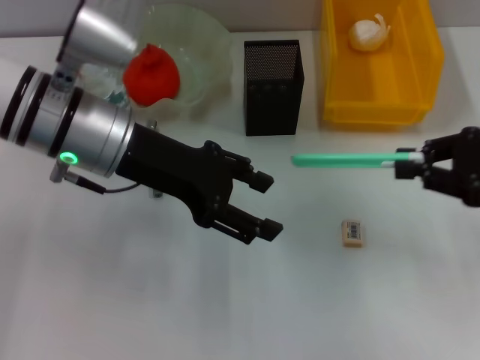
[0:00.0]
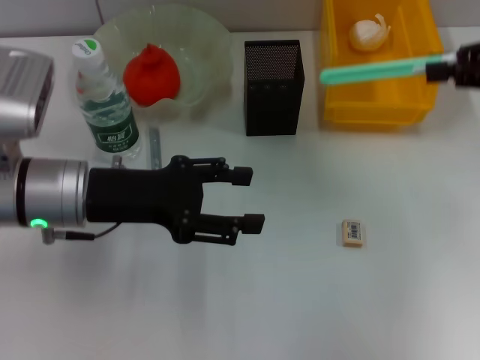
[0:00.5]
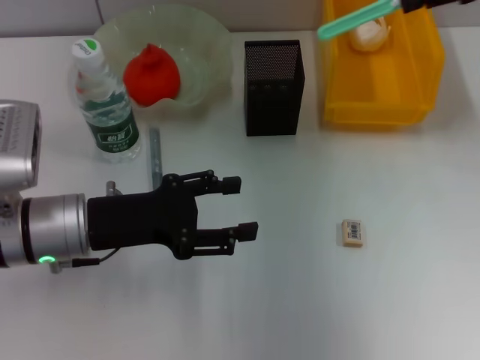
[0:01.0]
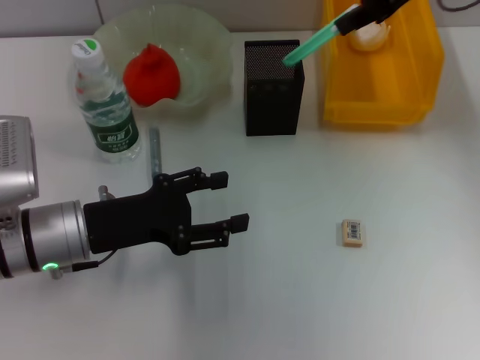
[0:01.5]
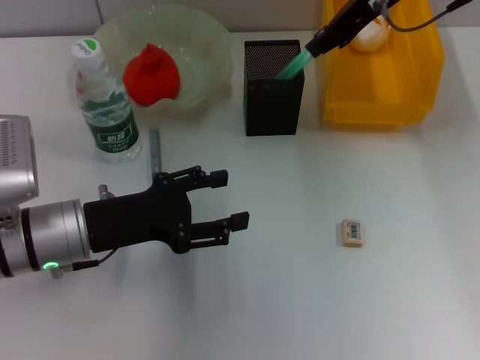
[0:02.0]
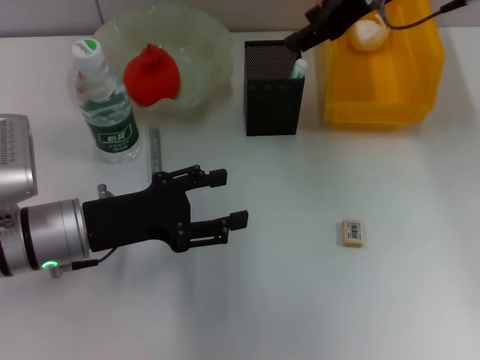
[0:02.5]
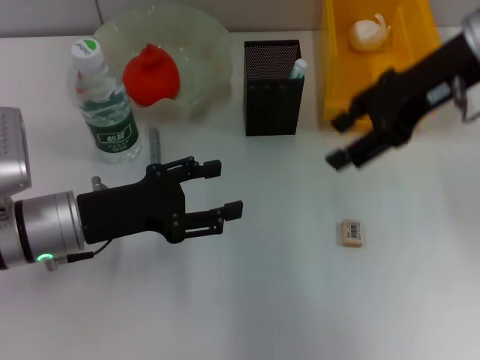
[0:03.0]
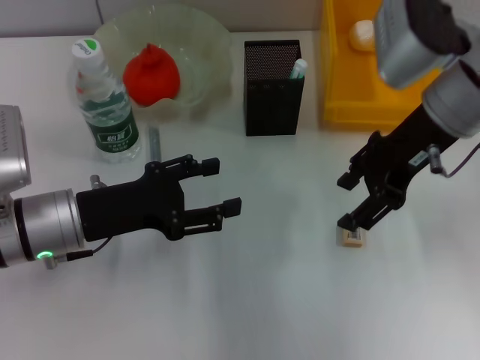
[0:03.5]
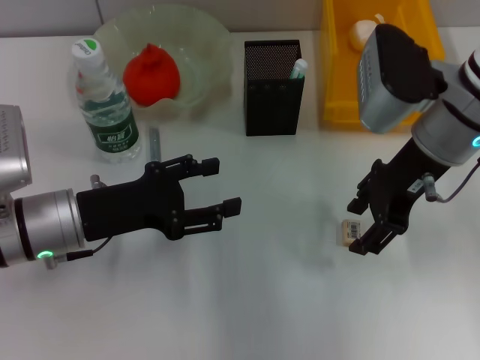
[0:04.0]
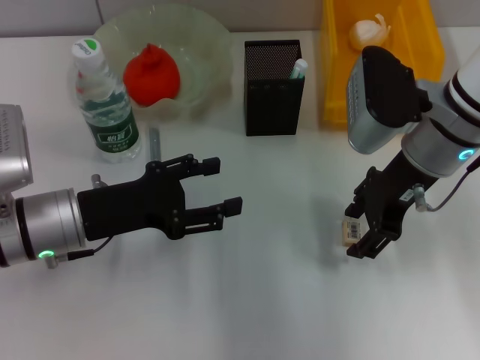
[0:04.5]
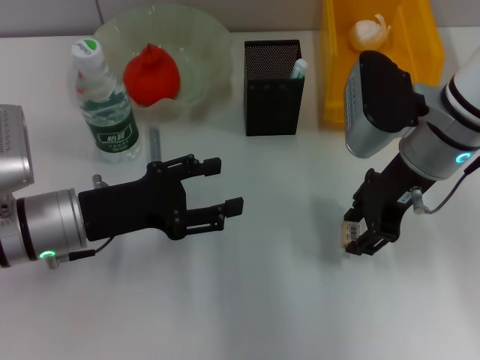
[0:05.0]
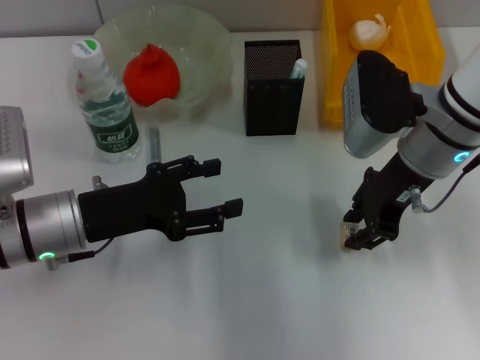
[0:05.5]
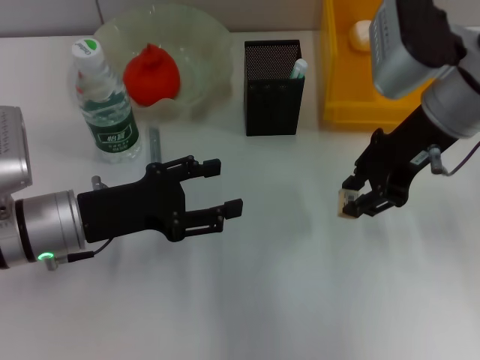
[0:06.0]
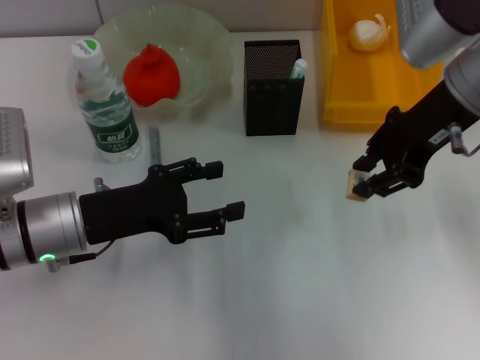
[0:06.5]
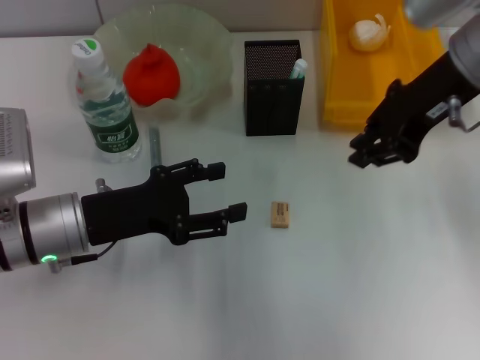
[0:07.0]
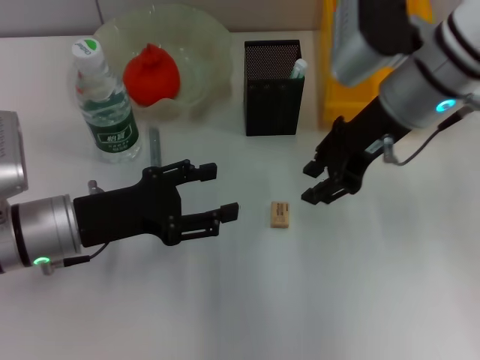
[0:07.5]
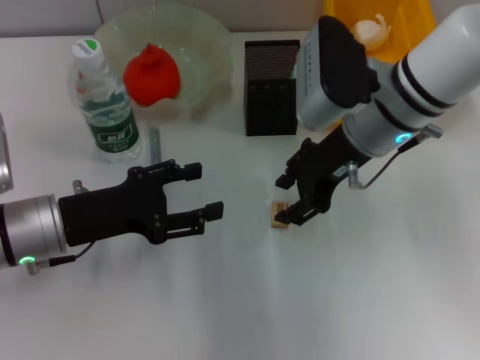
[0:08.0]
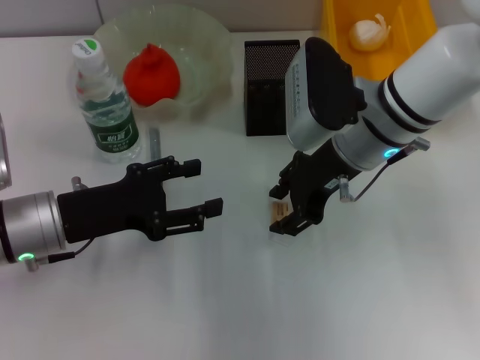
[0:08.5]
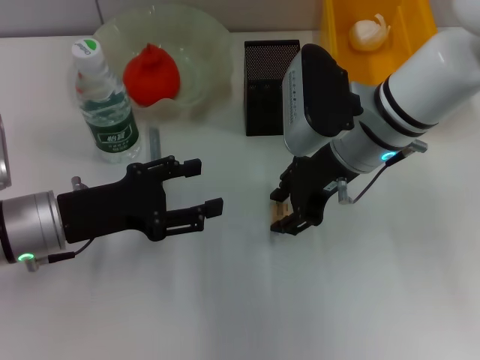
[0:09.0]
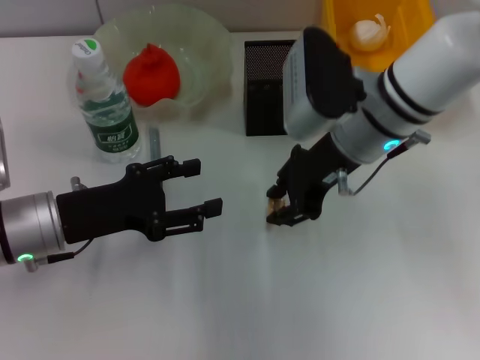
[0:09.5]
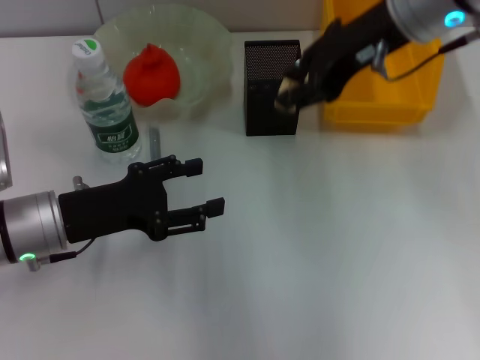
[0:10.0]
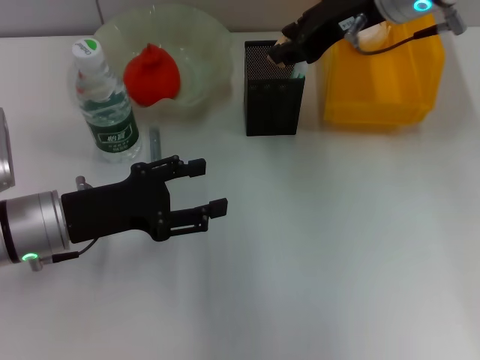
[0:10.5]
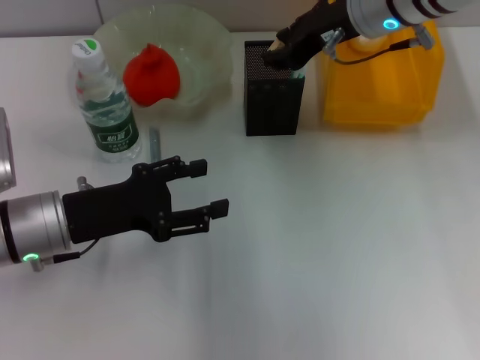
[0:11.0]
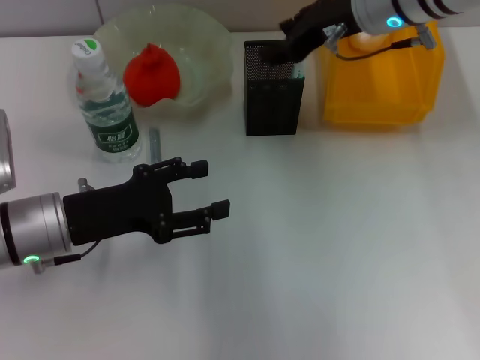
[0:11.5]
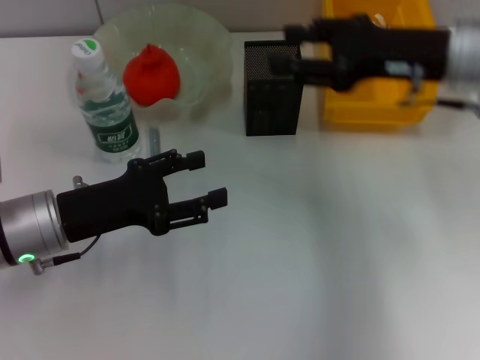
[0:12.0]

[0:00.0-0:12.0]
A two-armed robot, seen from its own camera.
Step, 0:00.0 to 0:02.0: Place the blue utility knife into the pen holder with the right hand.
Step, 0:02.5 to 0:09.0: Grab the eraser with the right hand.
Step, 0:09.5 to 0:11.0: Put the eraser into the pen holder with the right hand.
0:00.0 to 0:02.0: The right gripper heads to the left, forward and upward, covering roughly 25 cm. The left gripper travels downward, backward and to the left by some 15 cm.
0:02.0 to 0:04.0: The right gripper shifts about 15 cm downward and backward, and opens its fingers.
0:04.0 to 0:06.0: The right gripper closes.
0:06.0 to 0:08.0: The right gripper goes about 5 cm to the left.
0:08.0 to 0:10.0: The right gripper goes roughly 10 cm upward.
0:10.0 to 0:12.0: The right gripper travels downward and to the right by some 10 cm, and opens its fingers.

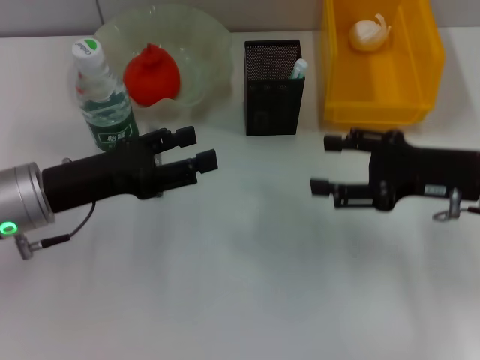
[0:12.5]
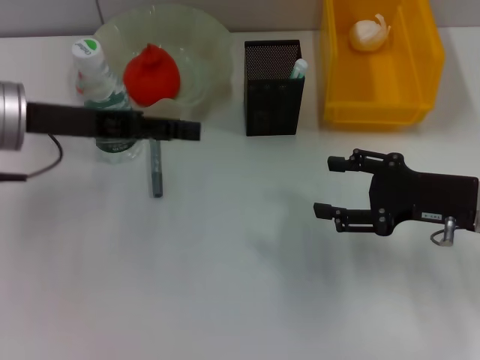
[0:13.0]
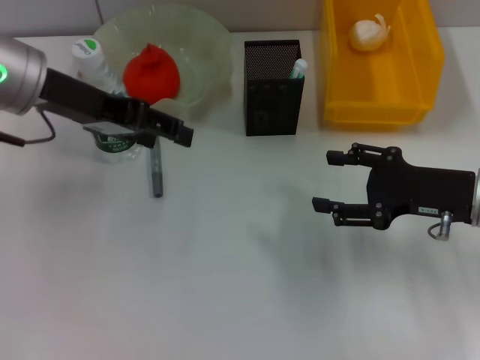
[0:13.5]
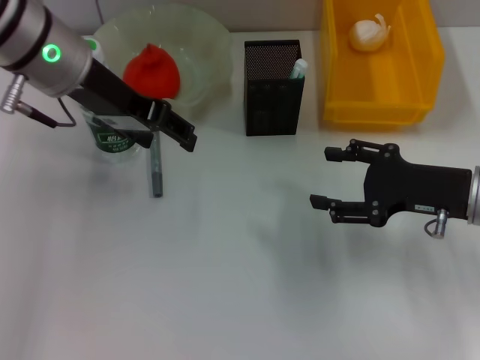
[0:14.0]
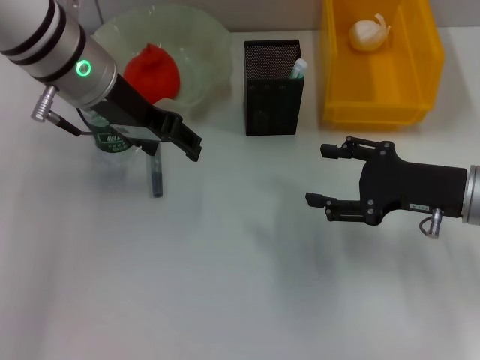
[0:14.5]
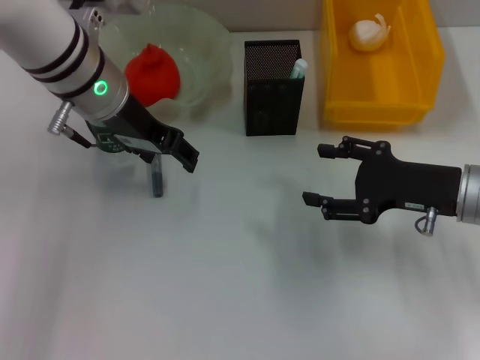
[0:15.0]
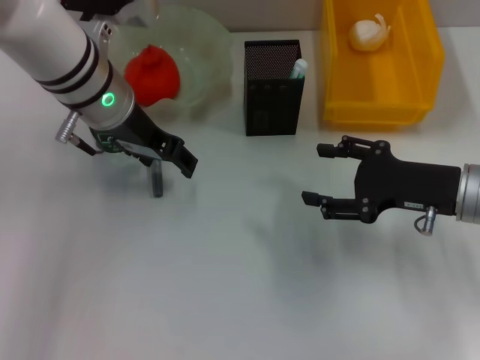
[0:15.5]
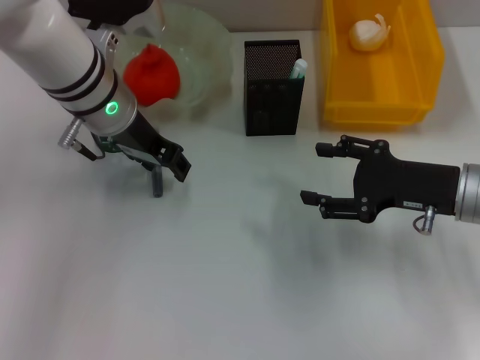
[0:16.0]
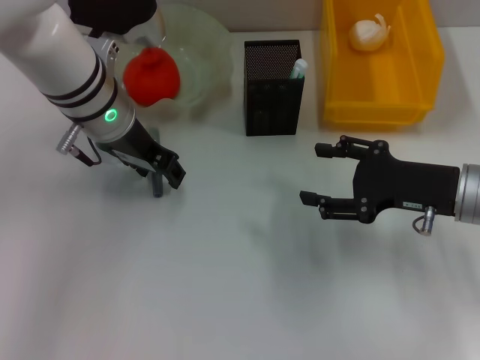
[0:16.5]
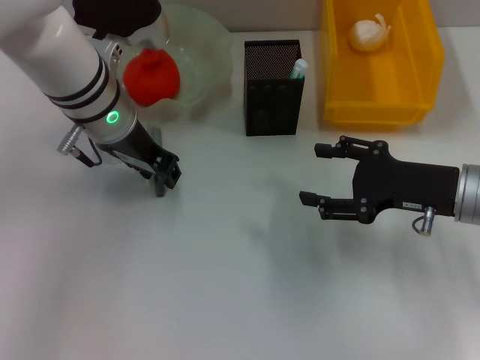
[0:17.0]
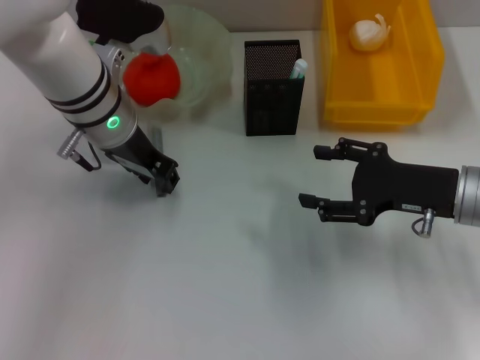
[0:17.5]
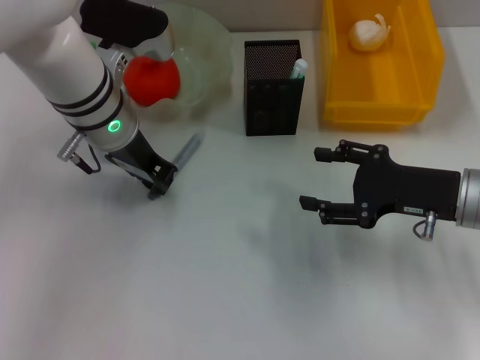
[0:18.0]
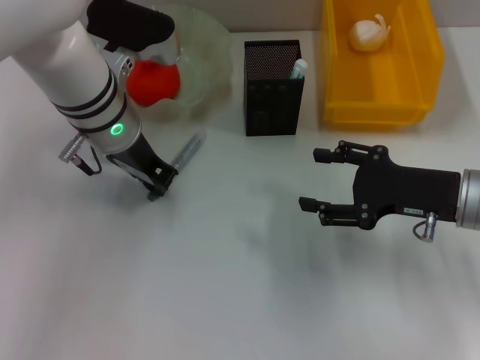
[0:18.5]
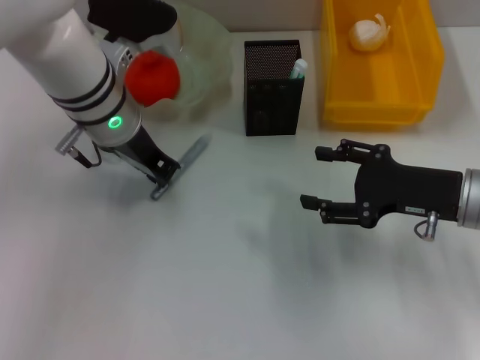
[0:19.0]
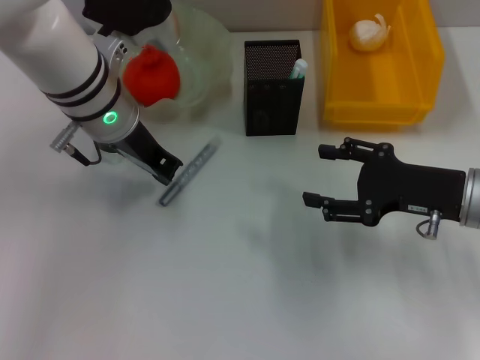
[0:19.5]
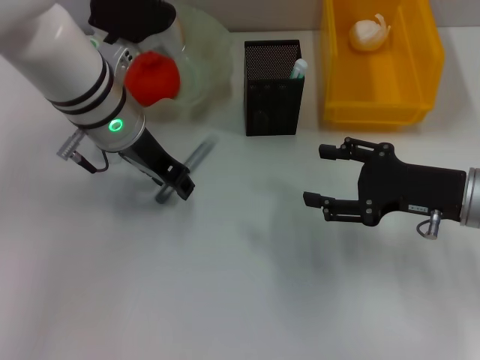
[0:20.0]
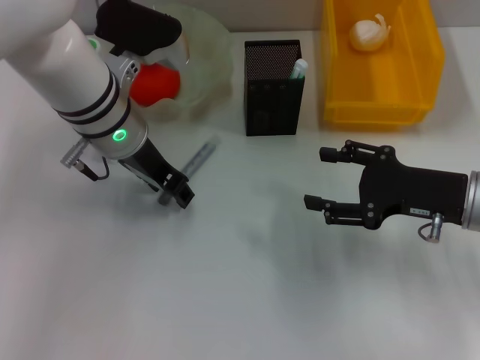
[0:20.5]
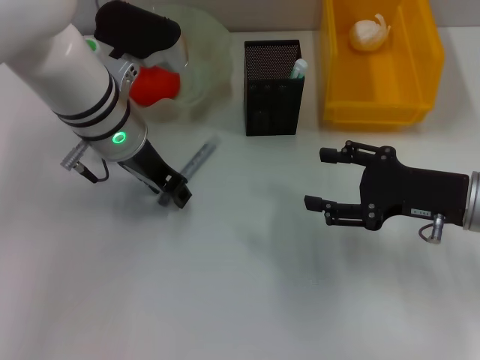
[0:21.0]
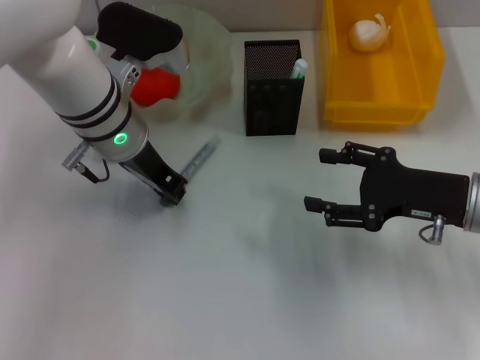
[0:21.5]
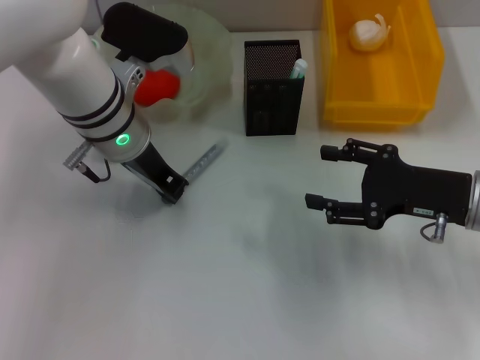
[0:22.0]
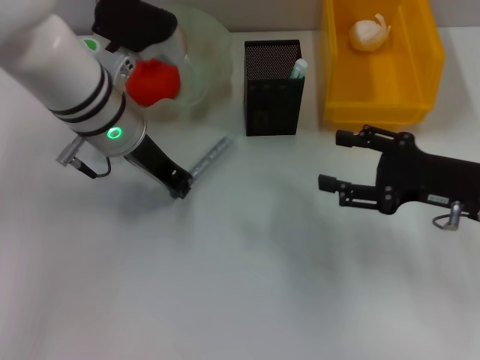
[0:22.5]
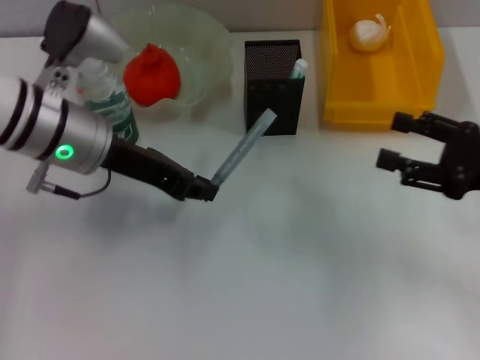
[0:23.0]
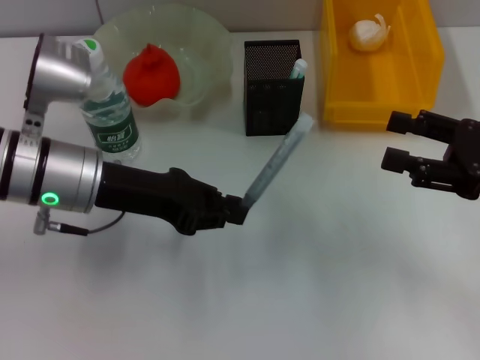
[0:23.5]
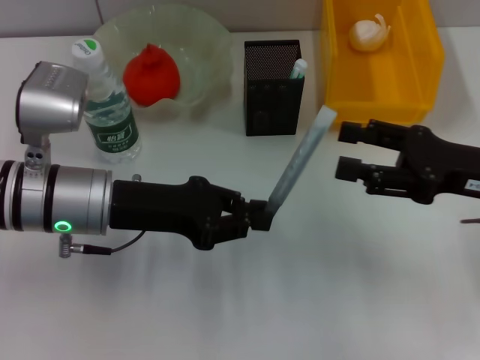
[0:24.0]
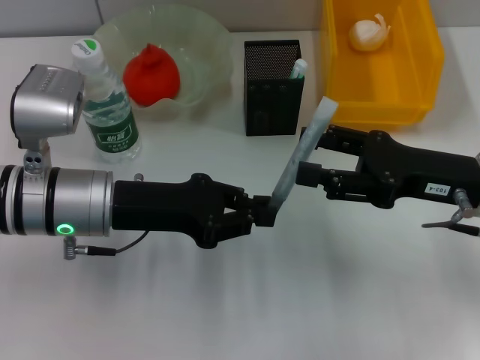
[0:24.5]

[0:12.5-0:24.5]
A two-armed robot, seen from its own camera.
Step, 0:12.5 to 0:22.0: Grab the gray glue with the left hand.
0:12.5 to 0:14.5: The left gripper travels upward, forward and to the right by some 15 cm.
0:14.5 to 0:16.5: The left gripper shifts by some 5 cm.
0:16.5 to 0:18.5: The left gripper closes up.
0:18.5 to 0:20.5: The left gripper opens.
0:20.5 to 0:22.5: The left gripper closes its fingers.
0:22.5 to 0:24.5: The left gripper travels backward by some 10 cm.

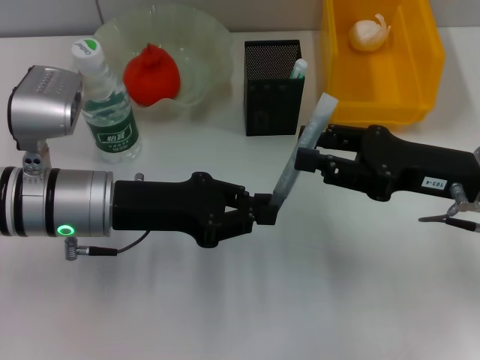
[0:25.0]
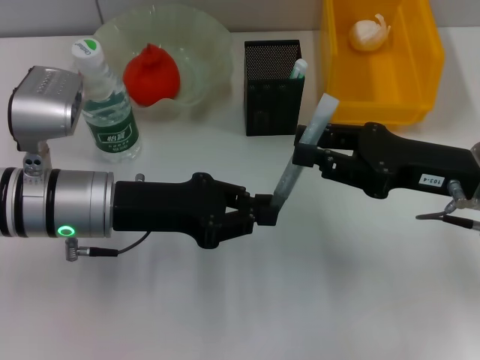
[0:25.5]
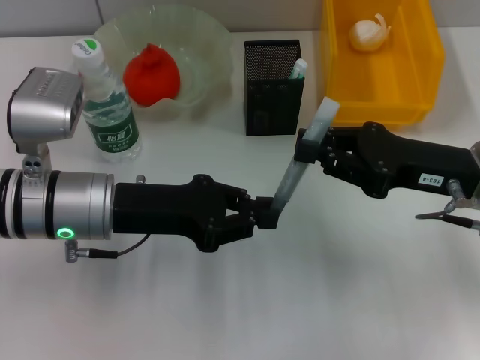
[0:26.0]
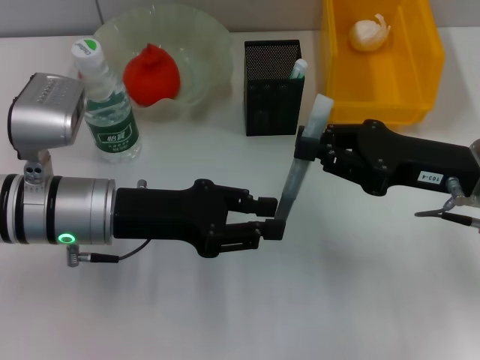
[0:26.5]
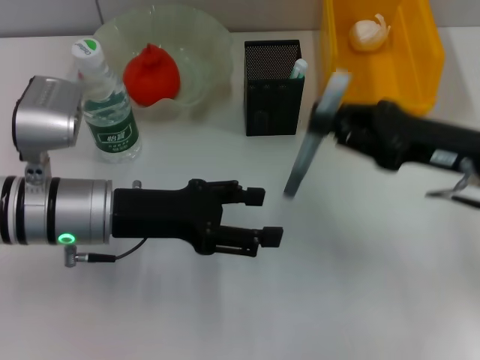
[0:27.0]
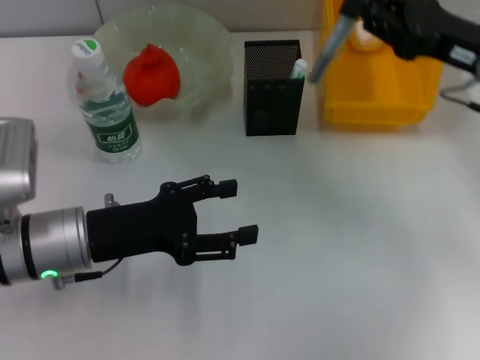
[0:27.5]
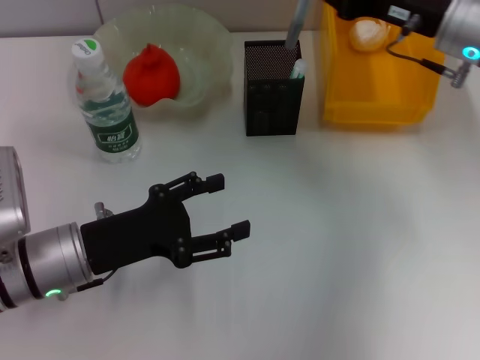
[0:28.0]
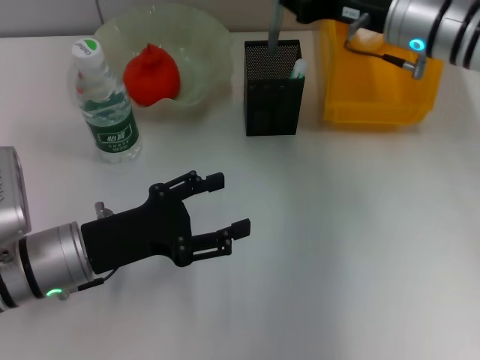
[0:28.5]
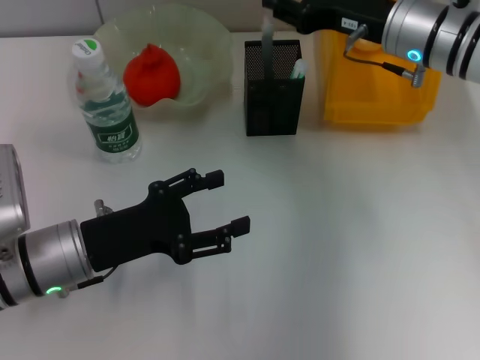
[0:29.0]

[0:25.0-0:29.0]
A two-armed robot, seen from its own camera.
0:25.0 to 0:27.0: The right gripper closes up, while the left gripper opens up.
0:27.0 to 0:29.0: The left gripper moves approximately 5 cm; the right gripper shifts about 15 cm forward and to the left.
